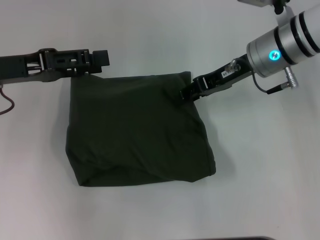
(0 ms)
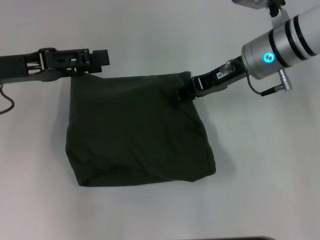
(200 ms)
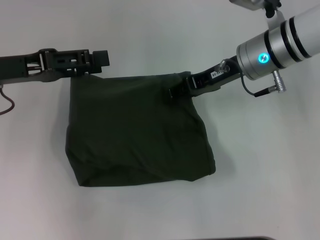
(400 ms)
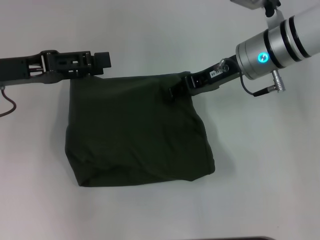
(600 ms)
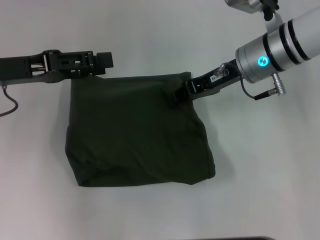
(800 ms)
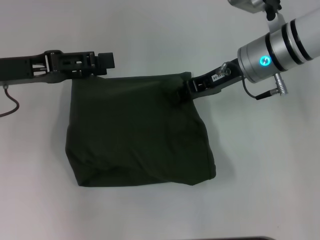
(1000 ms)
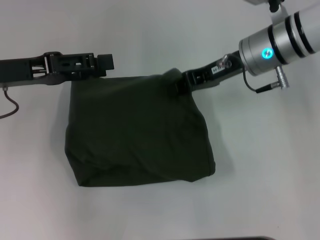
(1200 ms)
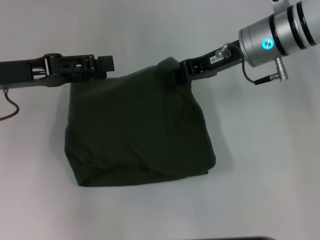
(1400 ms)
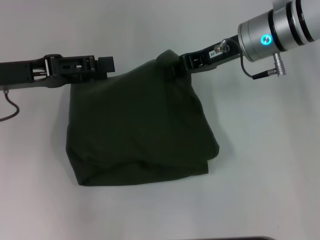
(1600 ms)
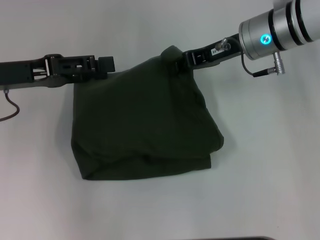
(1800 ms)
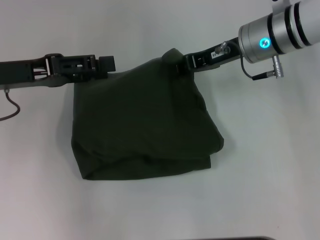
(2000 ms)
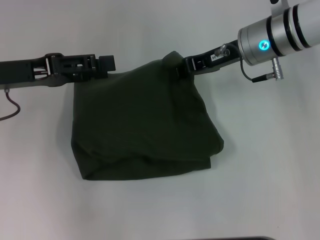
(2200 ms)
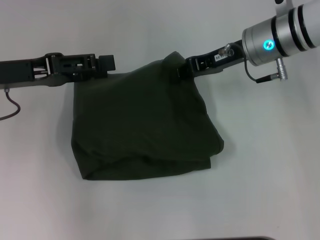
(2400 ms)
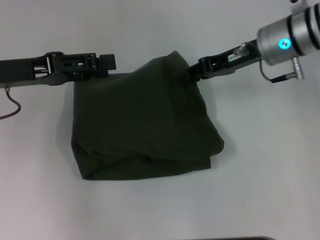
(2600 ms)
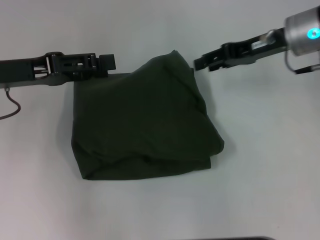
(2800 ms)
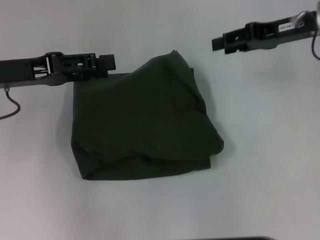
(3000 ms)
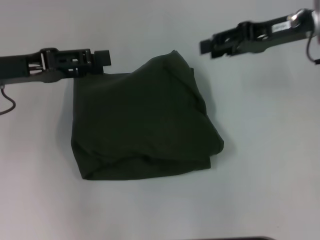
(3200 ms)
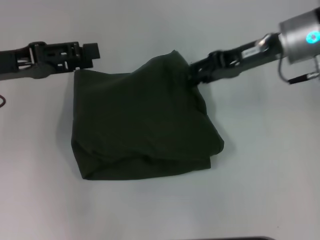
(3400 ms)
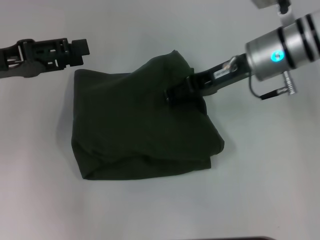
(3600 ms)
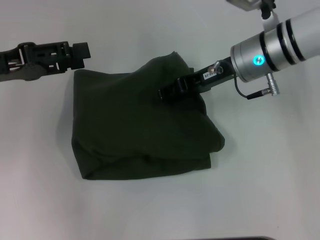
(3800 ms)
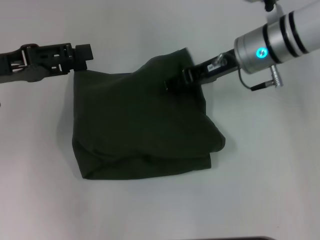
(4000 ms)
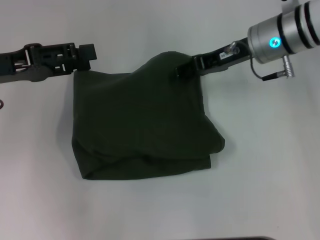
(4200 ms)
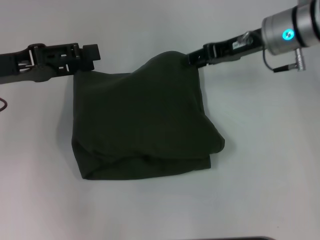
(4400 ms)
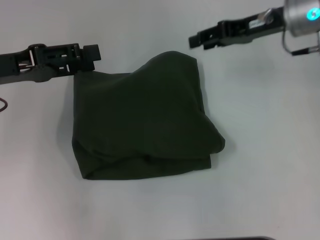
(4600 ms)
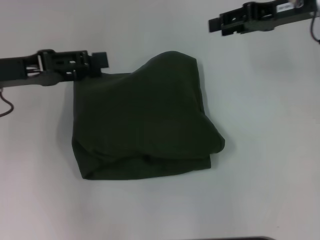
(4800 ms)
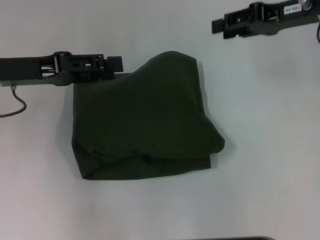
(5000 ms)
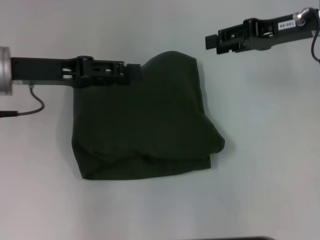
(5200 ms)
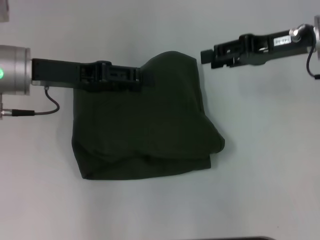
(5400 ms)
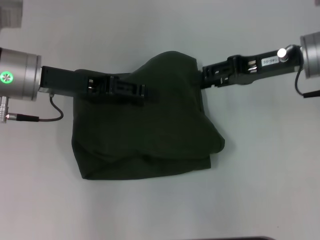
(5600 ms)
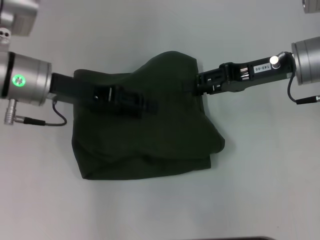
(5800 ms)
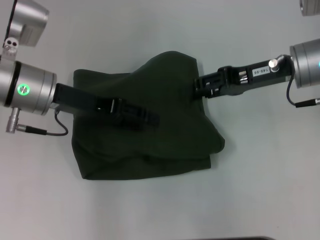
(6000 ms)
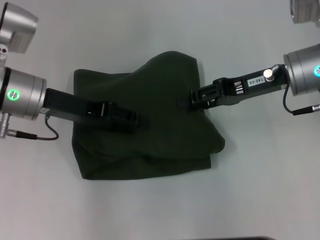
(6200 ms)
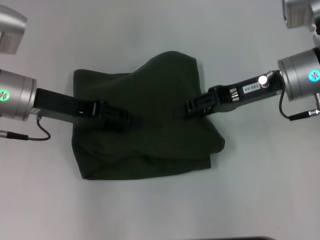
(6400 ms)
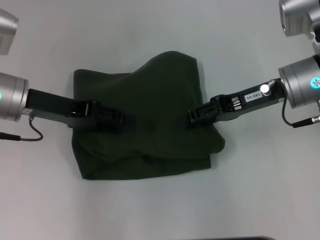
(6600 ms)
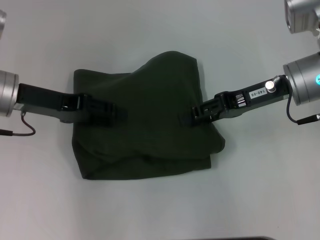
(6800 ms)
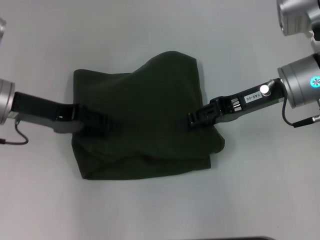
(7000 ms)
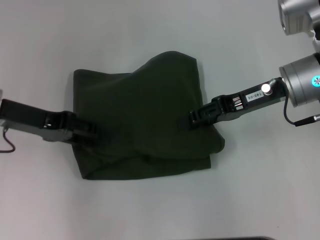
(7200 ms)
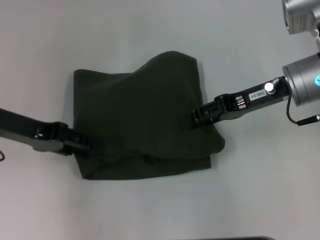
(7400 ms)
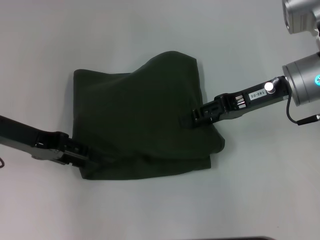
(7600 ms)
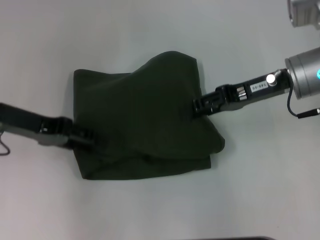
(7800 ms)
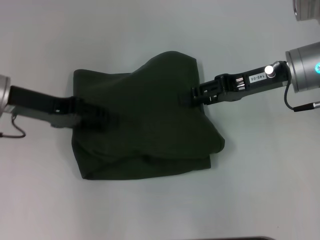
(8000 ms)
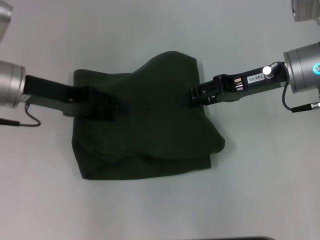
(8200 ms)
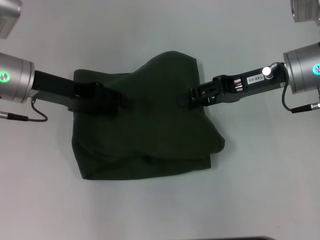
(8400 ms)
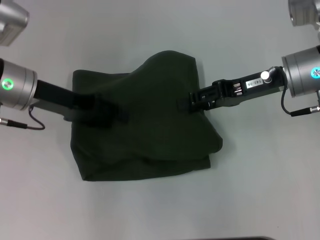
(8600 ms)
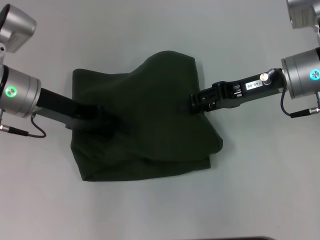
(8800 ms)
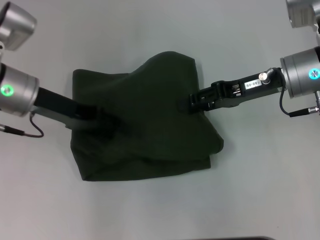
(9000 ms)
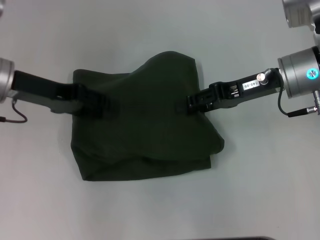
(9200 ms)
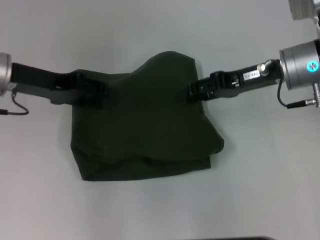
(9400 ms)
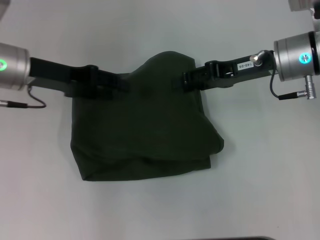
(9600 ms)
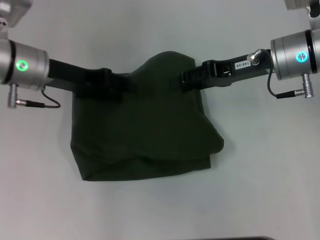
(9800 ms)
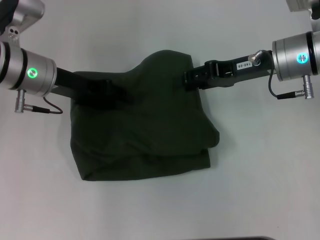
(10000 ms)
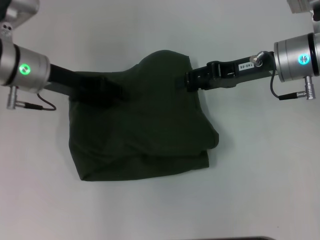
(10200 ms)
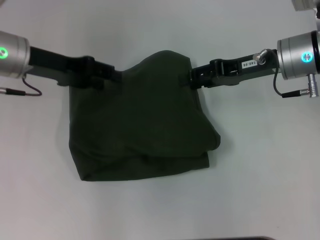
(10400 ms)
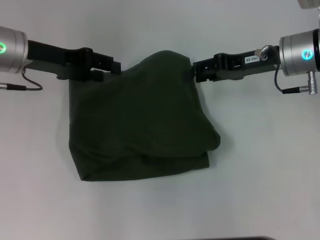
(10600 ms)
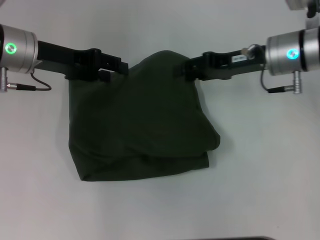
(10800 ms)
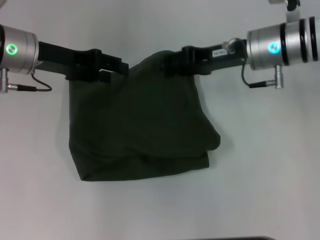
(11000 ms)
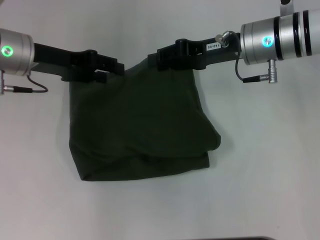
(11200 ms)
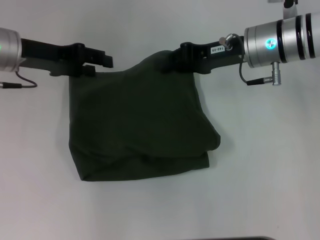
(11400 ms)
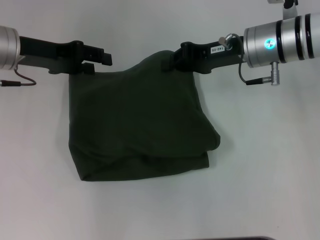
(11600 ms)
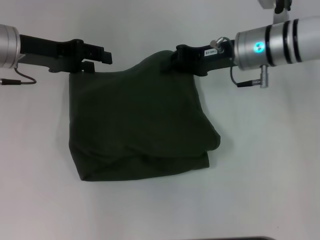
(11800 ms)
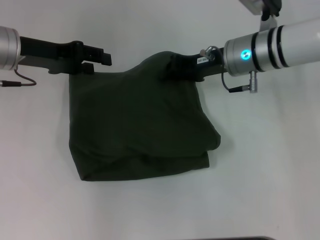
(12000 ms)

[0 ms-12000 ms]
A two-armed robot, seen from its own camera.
0 ms to 1600 ms: The right gripper closes up.
1600 ms to 3000 ms: The right gripper shifts roughly 10 cm to the right, and opens its fingers.
3000 ms to 4400 ms: The right gripper heads to the left, covering approximately 5 cm.
4400 ms to 6000 ms: The left gripper travels to the right by roughly 10 cm. Meanwhile the right gripper heads backward, covering some 5 cm.
6000 ms to 7600 ms: The left gripper moves to the left, roughly 5 cm.
7600 ms to 9000 ms: The left gripper shifts by roughly 5 cm.
9000 ms to 10400 ms: The grippers move only a little.
10400 ms to 12000 ms: The right gripper moves to the left, about 5 cm, and closes its fingers.

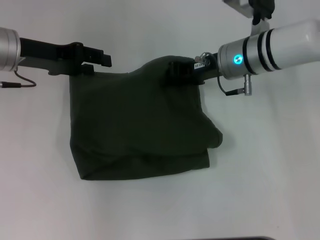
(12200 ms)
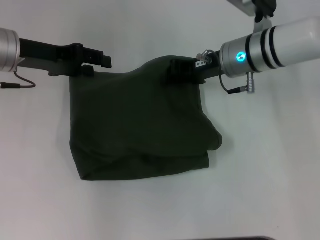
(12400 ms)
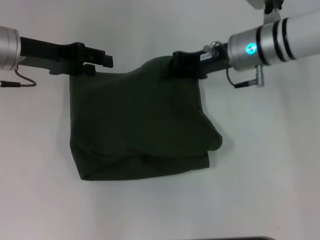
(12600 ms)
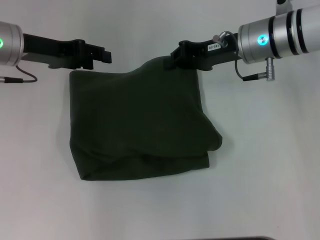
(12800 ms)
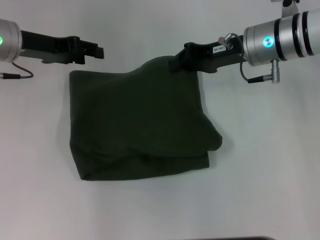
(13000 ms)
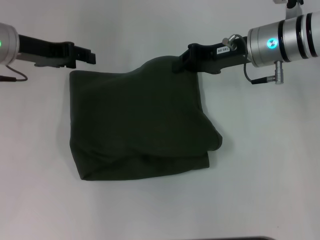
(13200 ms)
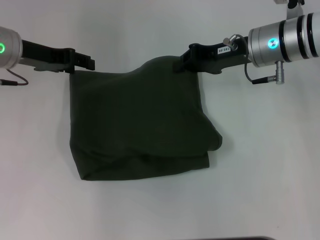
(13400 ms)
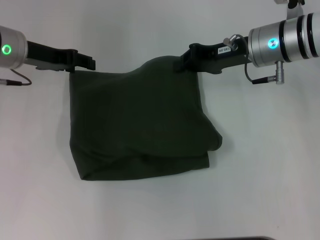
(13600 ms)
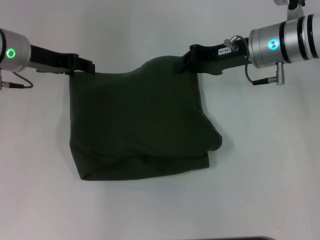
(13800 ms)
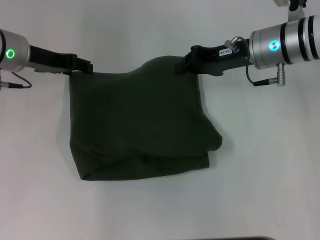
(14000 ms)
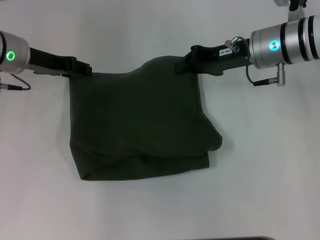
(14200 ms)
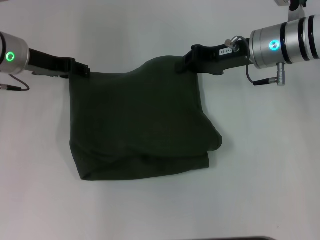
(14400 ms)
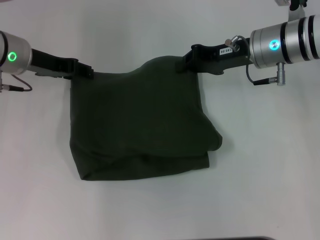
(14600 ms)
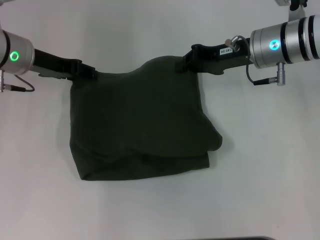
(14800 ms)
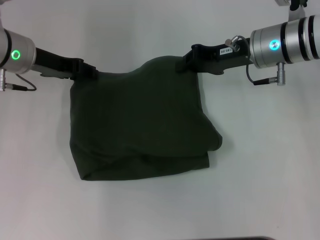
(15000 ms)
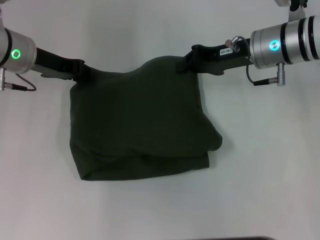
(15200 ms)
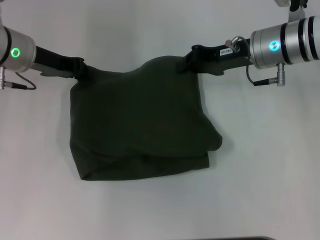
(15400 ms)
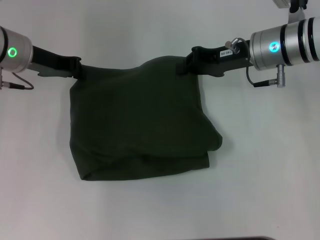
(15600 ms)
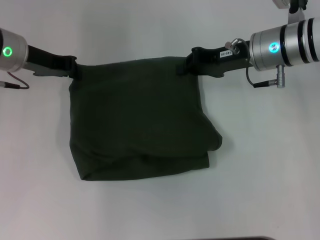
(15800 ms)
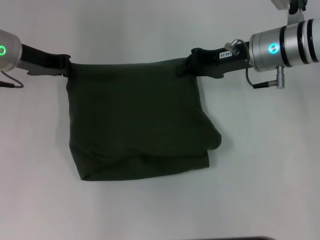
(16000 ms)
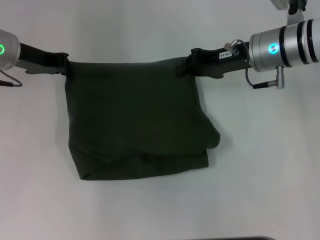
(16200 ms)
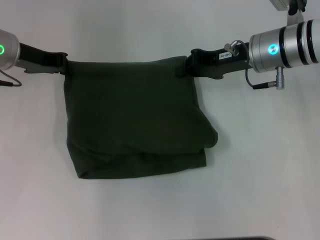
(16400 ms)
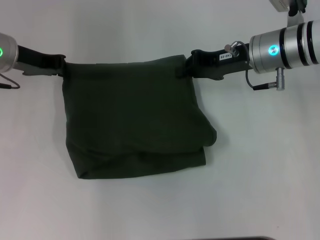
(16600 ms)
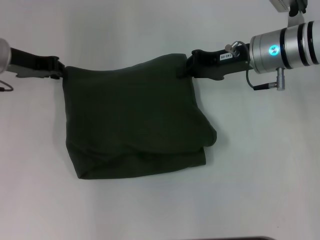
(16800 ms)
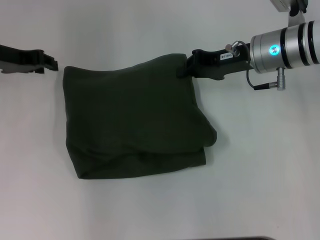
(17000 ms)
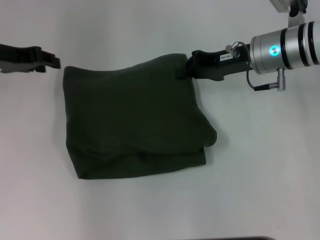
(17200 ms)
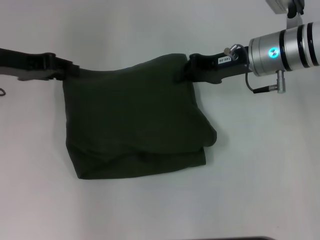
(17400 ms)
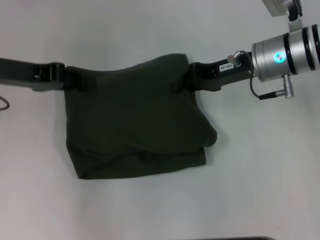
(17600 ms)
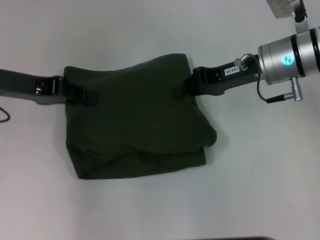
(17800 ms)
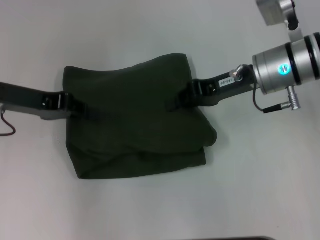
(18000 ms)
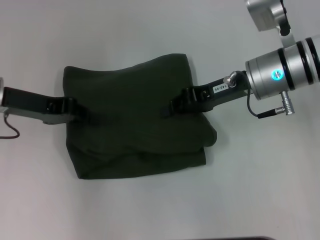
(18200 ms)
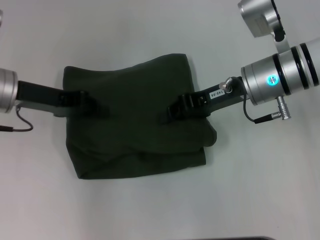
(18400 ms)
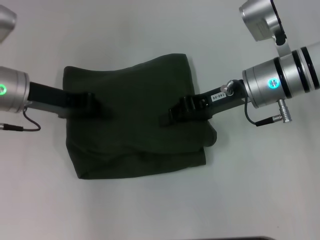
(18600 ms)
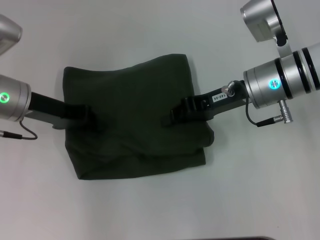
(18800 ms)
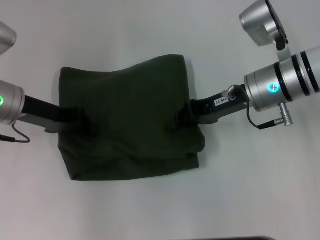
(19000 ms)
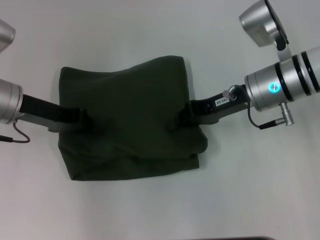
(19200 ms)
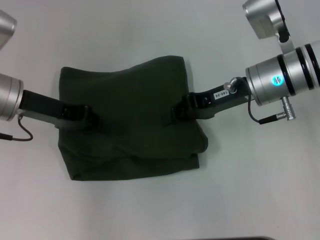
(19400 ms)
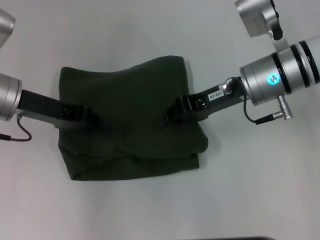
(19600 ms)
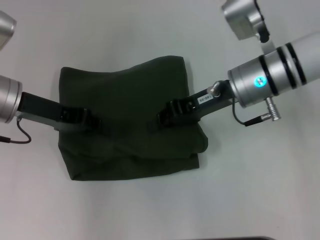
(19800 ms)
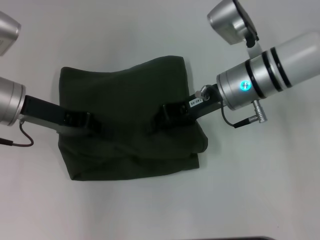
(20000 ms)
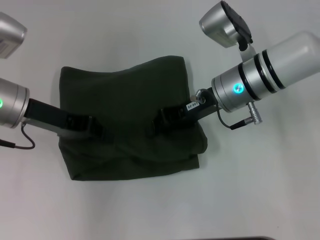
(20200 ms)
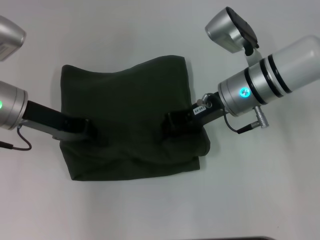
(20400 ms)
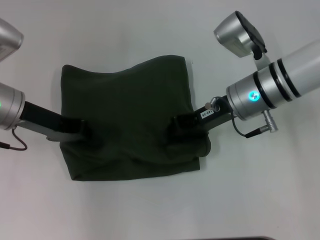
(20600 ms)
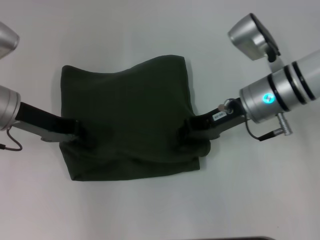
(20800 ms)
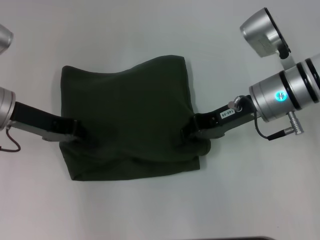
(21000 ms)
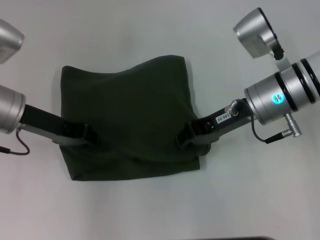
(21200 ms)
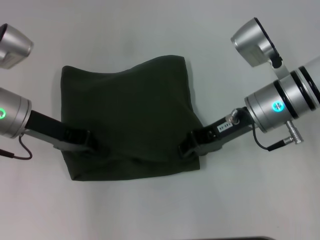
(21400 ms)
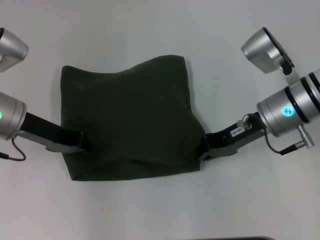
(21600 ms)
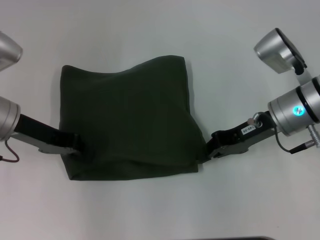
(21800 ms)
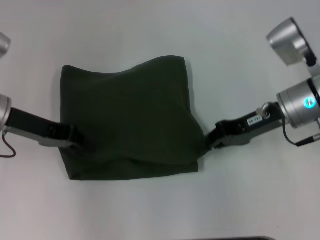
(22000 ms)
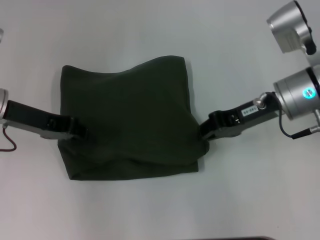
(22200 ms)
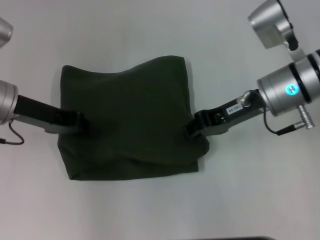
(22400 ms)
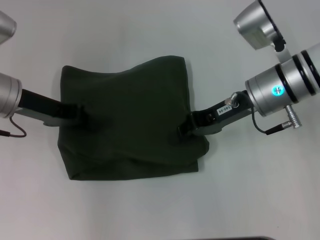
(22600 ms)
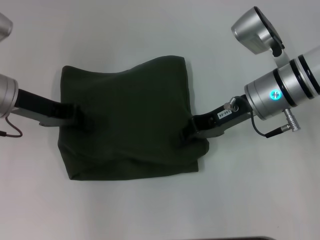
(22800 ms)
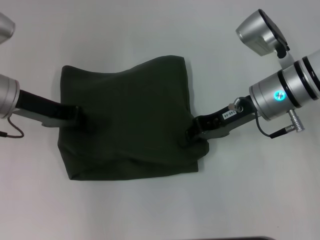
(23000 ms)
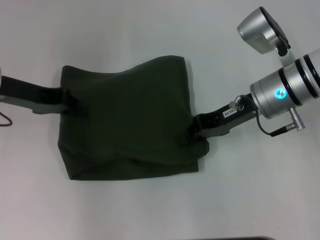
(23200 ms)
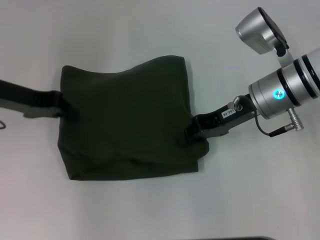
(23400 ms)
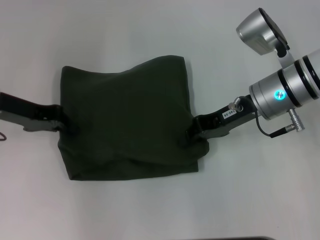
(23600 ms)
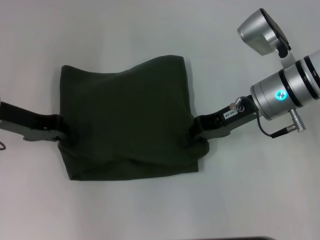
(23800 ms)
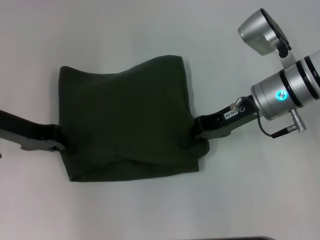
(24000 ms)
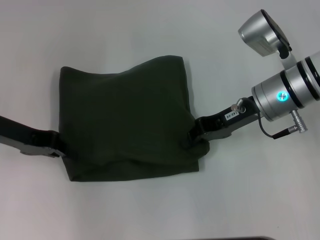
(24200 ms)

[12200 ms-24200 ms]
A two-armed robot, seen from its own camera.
12200 ms to 13800 ms: The grippers stay close to where they were, moving slightly.
13800 ms to 15200 ms: Both grippers stay put.
15200 ms to 16600 ms: The left gripper closes.
16600 ms to 18200 ms: The left gripper is displaced backward by roughly 10 cm, and opens and closes again.
18200 ms to 24200 ms: The grippers make only small movements.
